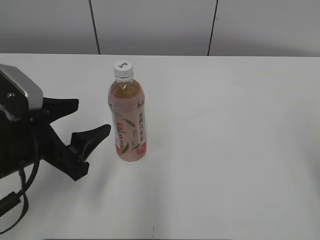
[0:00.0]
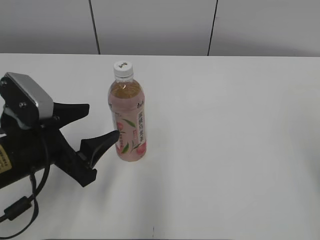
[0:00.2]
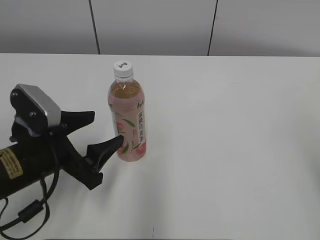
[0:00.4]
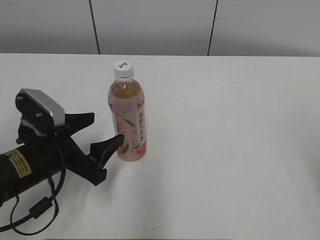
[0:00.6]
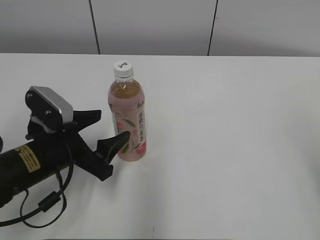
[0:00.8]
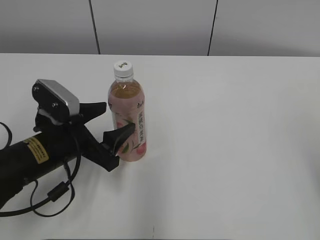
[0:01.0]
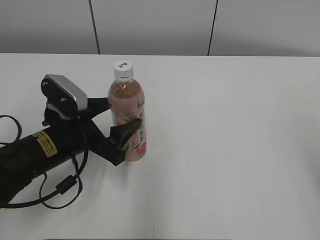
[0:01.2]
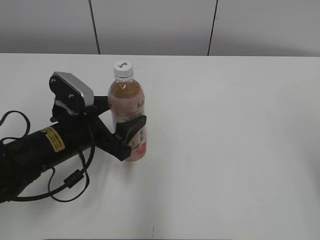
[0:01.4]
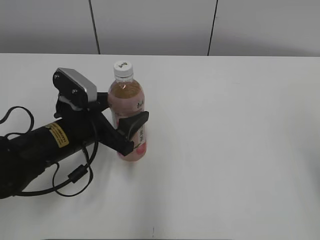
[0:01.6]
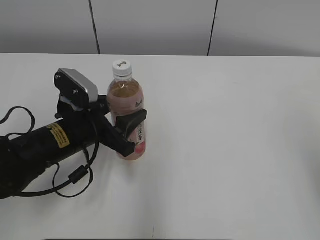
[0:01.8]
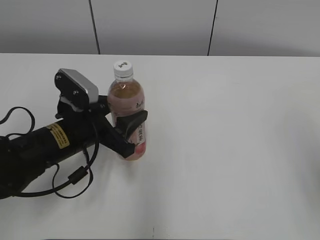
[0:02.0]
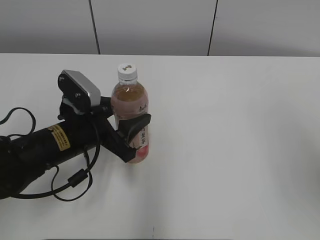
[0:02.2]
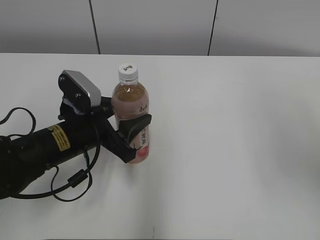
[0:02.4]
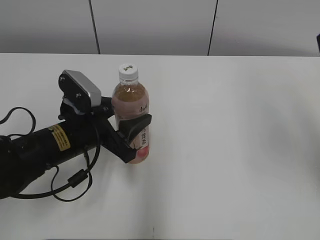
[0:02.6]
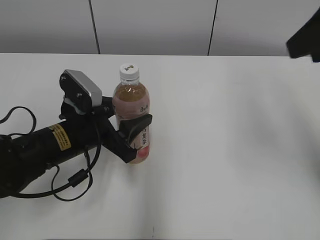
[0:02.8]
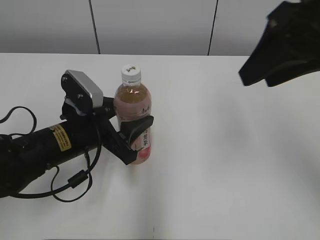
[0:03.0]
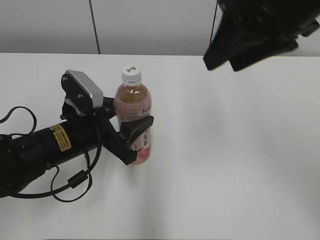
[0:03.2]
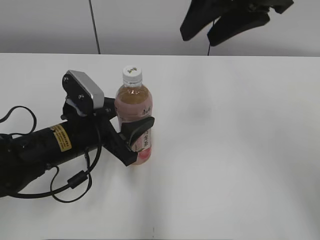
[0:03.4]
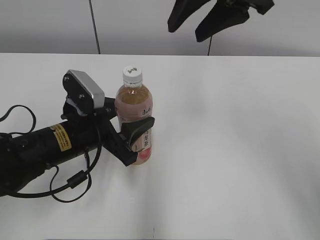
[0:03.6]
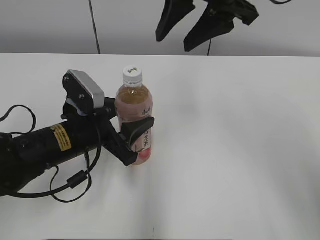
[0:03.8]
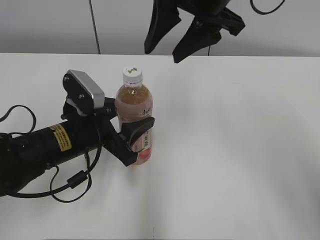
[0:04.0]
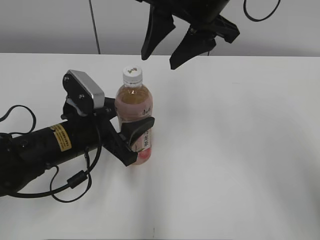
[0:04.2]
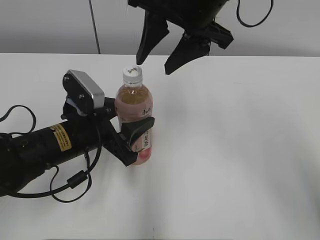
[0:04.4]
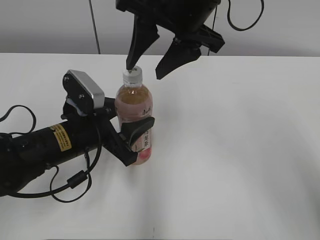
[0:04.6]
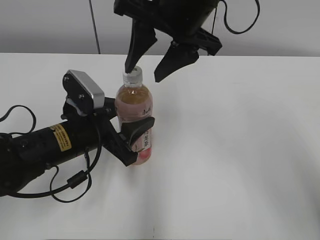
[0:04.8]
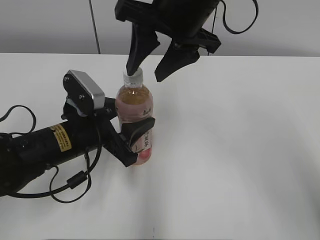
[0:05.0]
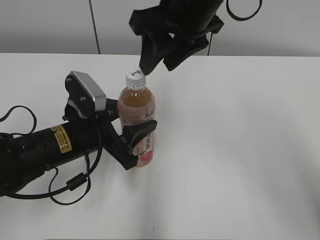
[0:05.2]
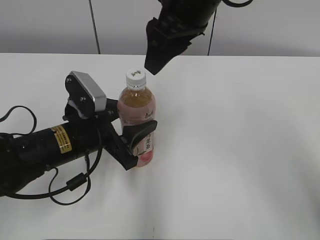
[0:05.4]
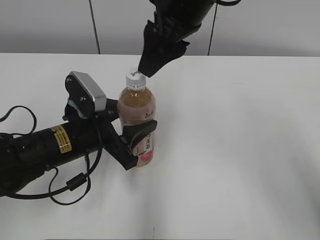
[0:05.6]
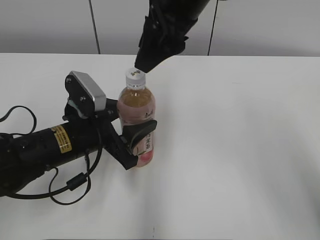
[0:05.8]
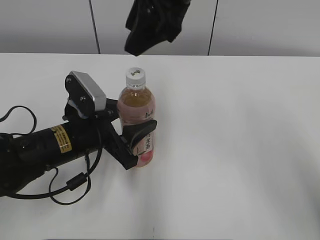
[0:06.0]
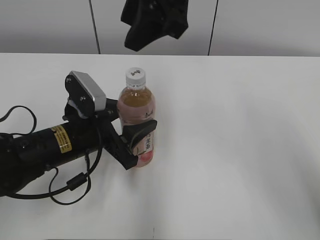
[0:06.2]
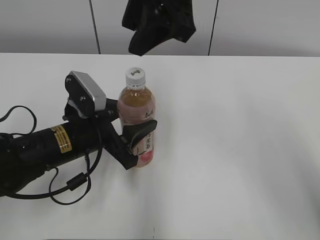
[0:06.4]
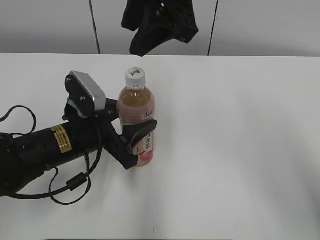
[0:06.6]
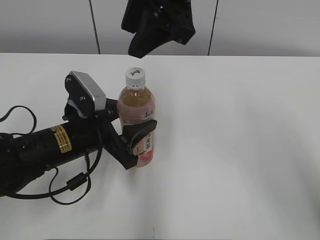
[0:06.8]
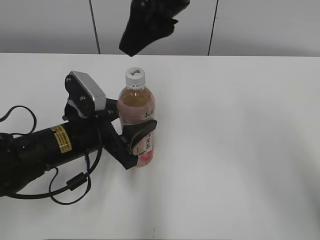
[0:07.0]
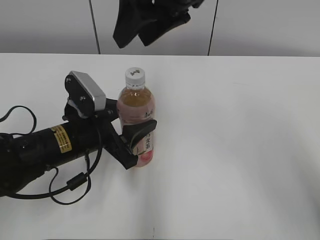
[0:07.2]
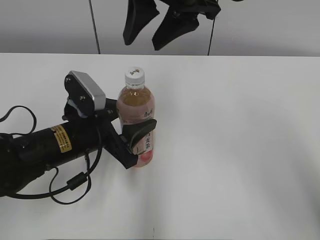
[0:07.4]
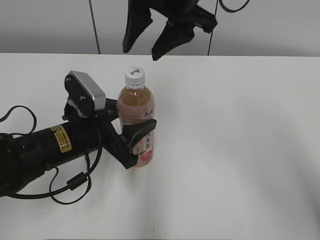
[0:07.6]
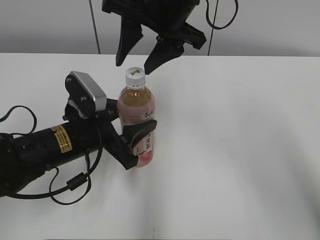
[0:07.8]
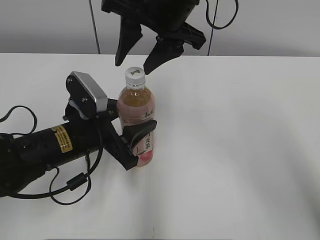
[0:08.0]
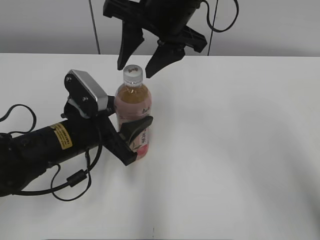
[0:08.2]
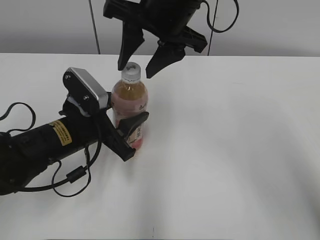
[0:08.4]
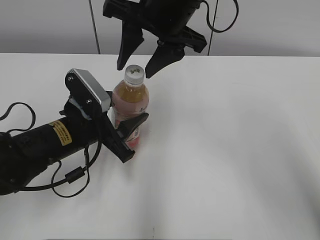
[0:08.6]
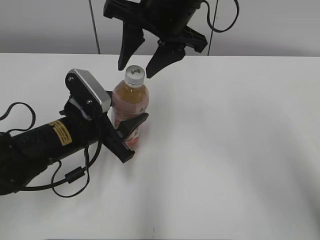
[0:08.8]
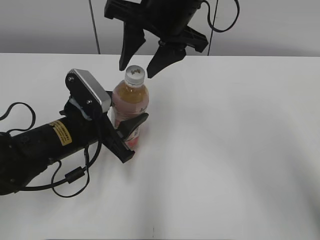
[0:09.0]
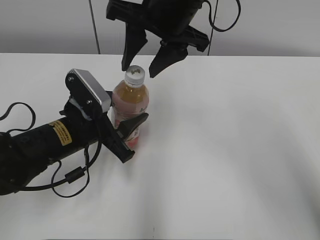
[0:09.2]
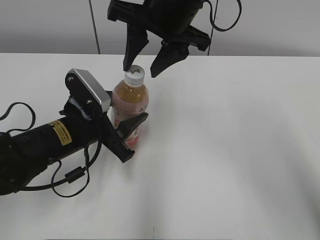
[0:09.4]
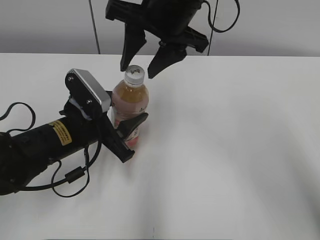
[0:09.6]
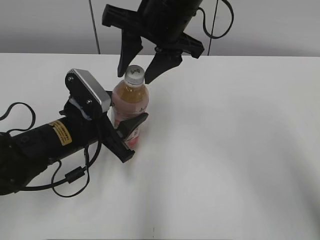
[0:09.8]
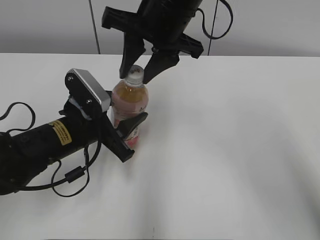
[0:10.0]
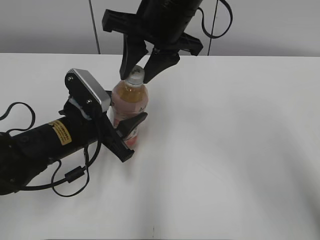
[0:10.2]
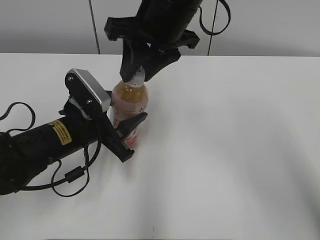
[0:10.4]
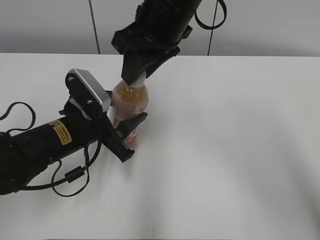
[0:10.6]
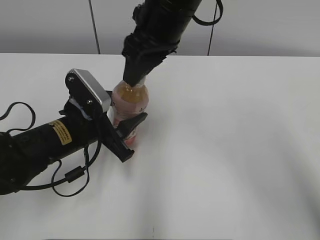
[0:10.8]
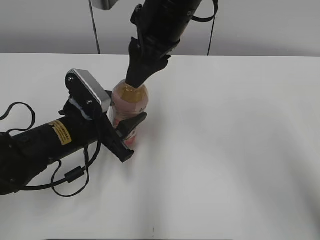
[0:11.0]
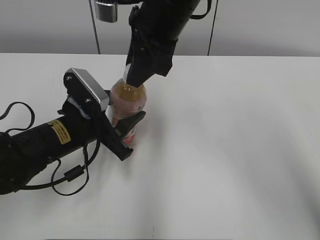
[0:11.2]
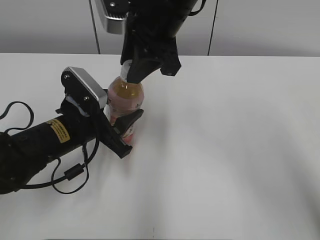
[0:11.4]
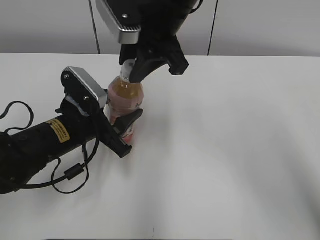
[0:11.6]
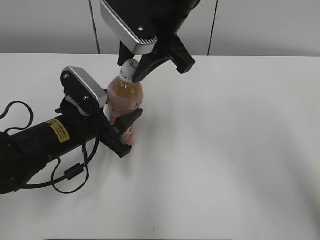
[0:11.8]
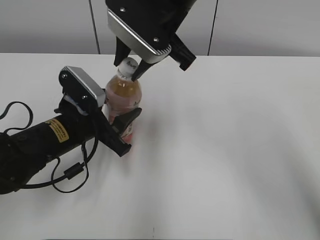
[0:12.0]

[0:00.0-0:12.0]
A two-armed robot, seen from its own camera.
Step, 2.2 to 10.0 s: Move the Peach Oolong Tea from left to right.
0.0 to 1.6 s: The left gripper goes roughly 10 cm forward and downward.
1.6 to 3.0 s: The left gripper closes its fingers. Meanwhile the right gripper shifts approximately 20 cm forward and to the left.
3.0 to 4.4 s: The right gripper is displaced to the left and forward by approximately 15 cm.
7.6 to 10.4 s: The grippers move only a little.

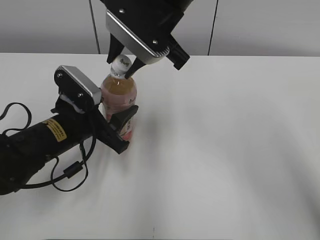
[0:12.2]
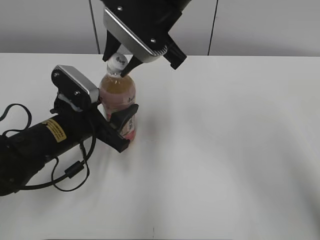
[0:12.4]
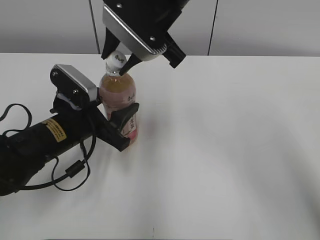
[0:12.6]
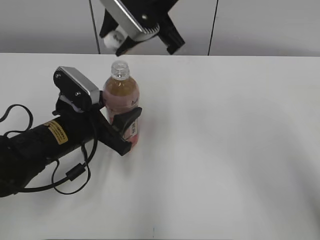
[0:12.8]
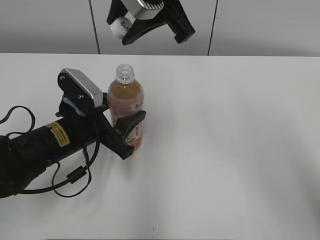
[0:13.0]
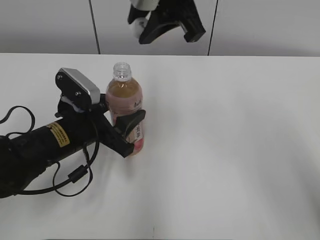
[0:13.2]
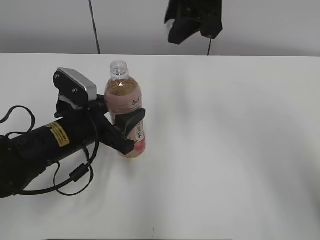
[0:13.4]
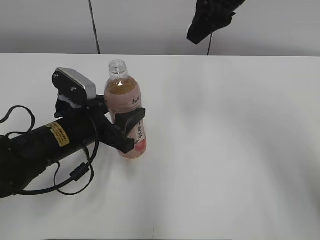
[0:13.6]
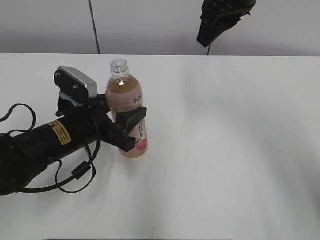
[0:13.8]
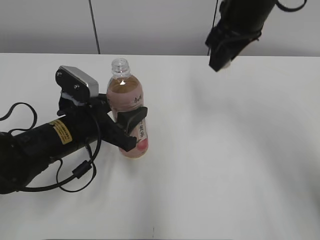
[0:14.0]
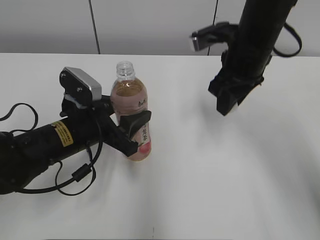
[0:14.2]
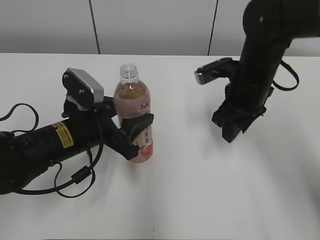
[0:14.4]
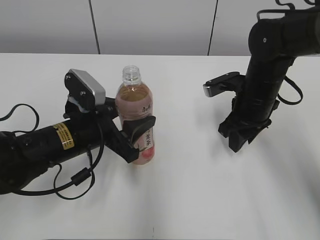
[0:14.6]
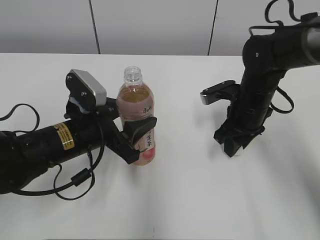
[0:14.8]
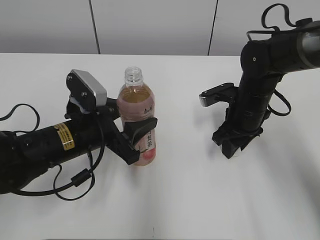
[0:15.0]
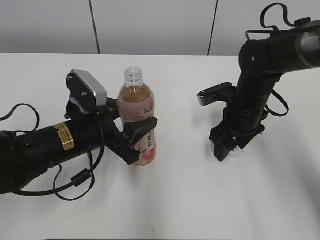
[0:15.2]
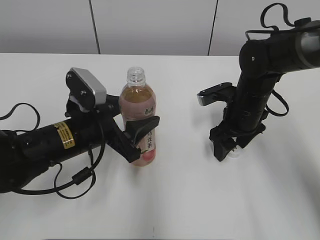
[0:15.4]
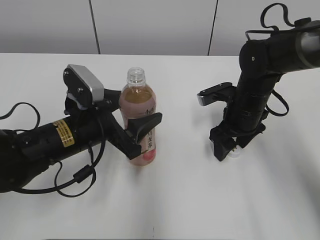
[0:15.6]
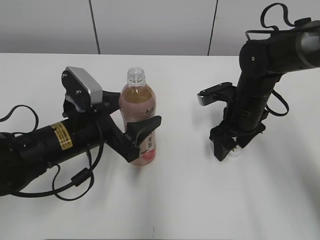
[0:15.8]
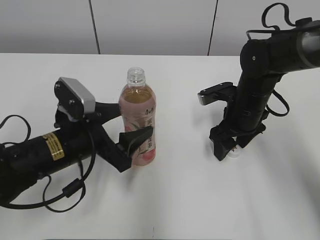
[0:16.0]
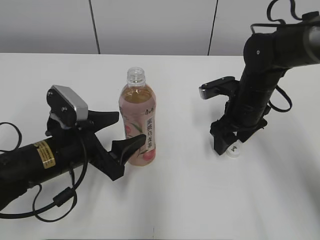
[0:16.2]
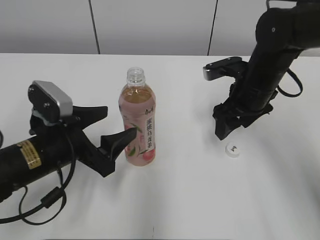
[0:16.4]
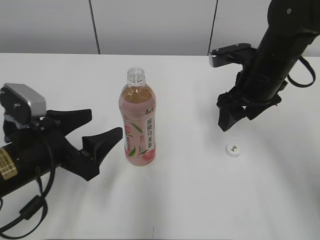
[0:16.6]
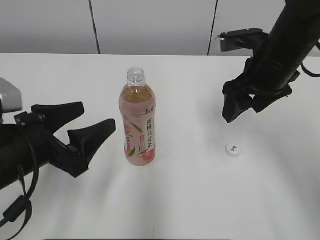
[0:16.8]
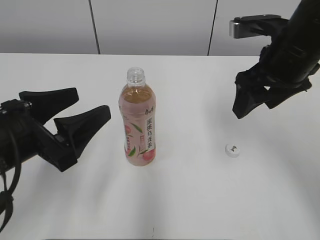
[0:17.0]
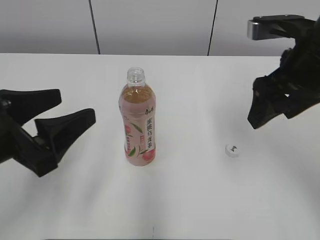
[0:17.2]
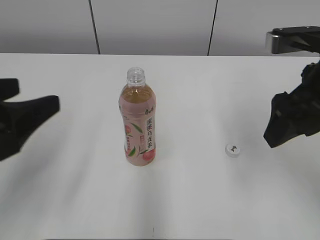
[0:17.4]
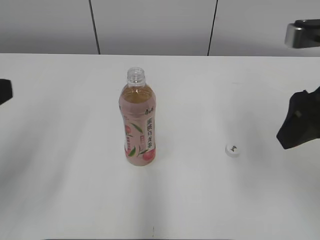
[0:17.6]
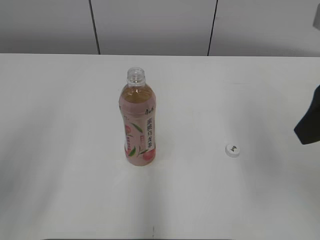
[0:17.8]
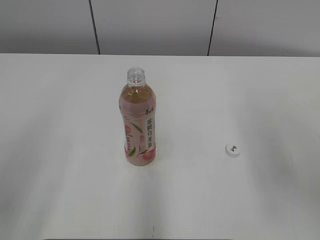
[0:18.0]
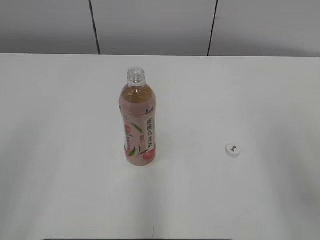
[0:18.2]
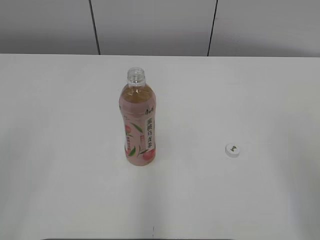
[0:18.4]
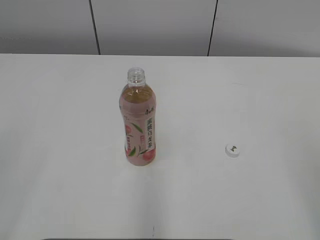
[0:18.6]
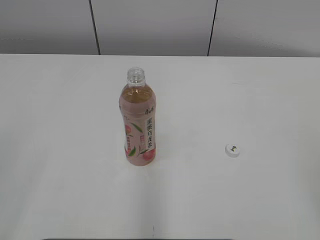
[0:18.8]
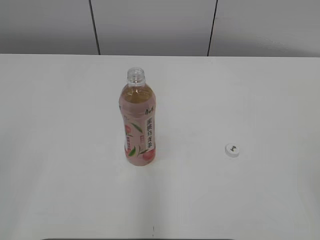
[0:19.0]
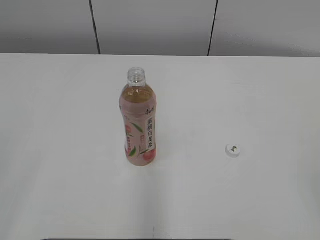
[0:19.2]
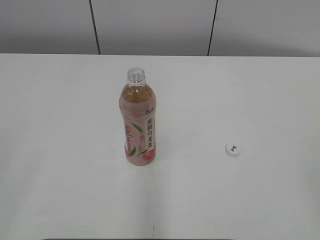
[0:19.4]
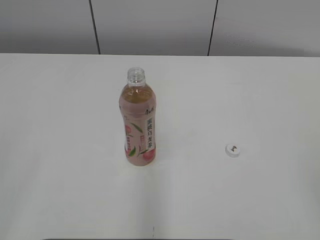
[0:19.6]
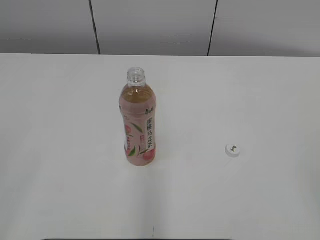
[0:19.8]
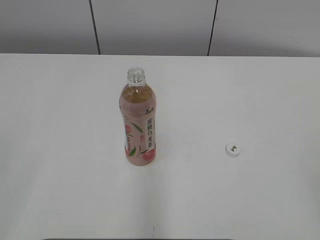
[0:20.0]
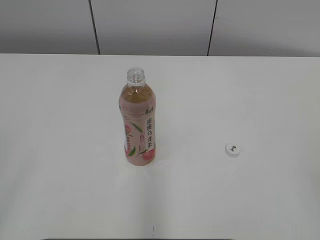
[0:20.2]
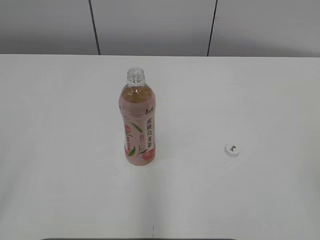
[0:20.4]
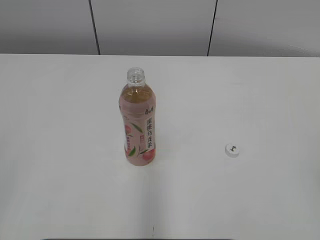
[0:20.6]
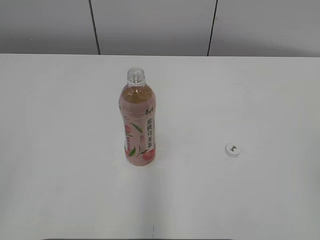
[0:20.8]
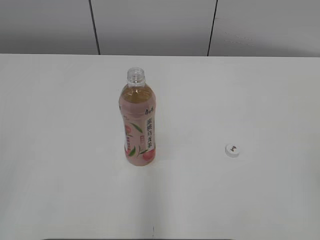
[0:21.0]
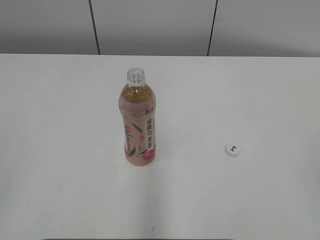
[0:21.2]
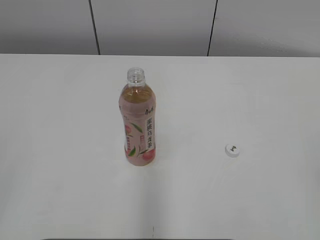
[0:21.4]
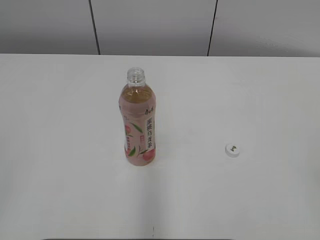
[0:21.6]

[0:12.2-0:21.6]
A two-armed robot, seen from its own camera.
Step, 12.8 to 15.0 s: Place the bottle cap on the right.
Step, 15.2 to 15.4 s: Place the Peach Oolong Tea with the left hand.
12.2 to 13.8 s: The right gripper goes about 10 cm to the right.
13.8 to 15.4 s: The right gripper is displaced downward by some 20 cm, and opens up.
15.4 to 17.0 s: The left gripper goes some 10 cm backward, upward and to the left, while the right gripper is displaced upward by approximately 15 cm.
17.0 to 18.4 s: The left gripper travels backward, upward and to the left by some 20 cm. Meanwhile the right gripper heads backward and to the right, covering some 25 cm.

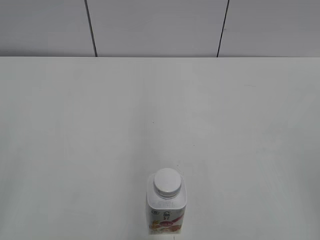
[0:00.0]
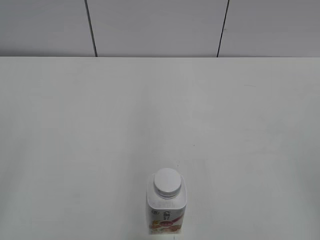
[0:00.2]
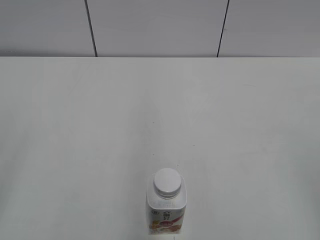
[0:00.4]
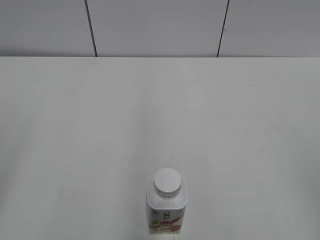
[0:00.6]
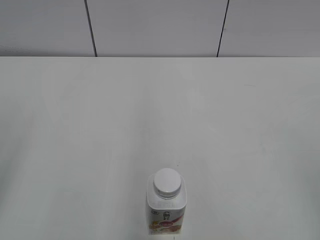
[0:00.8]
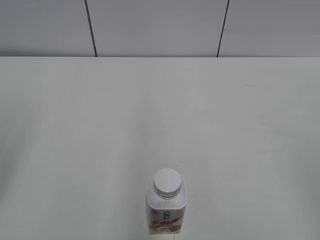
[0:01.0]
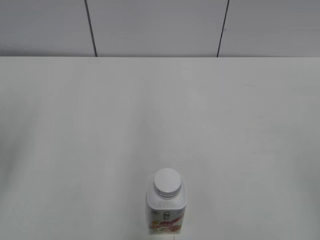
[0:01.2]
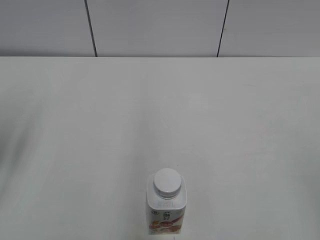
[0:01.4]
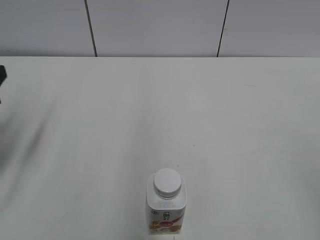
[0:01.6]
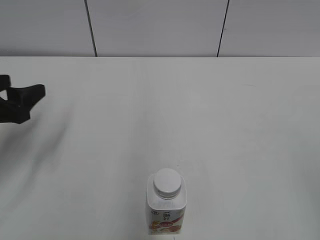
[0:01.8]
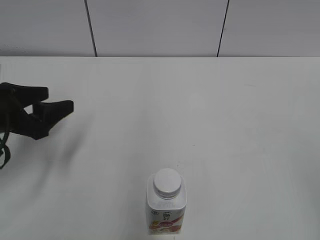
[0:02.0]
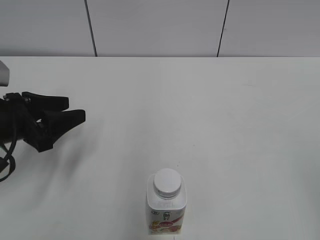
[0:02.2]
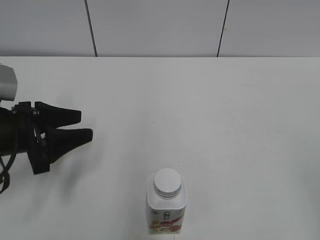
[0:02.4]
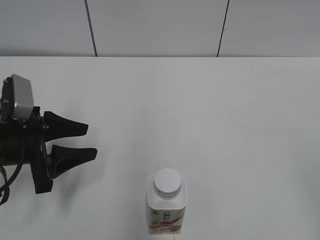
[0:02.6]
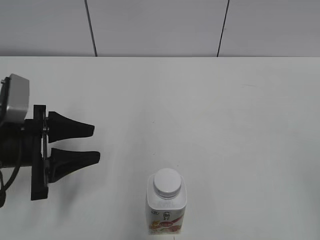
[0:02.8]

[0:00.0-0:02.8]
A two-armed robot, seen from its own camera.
0.0 to 1.4 s: The left gripper goes some 20 cm forward.
1.4 to 2.8 s: The left gripper goes about 15 cm downward and to the right.
